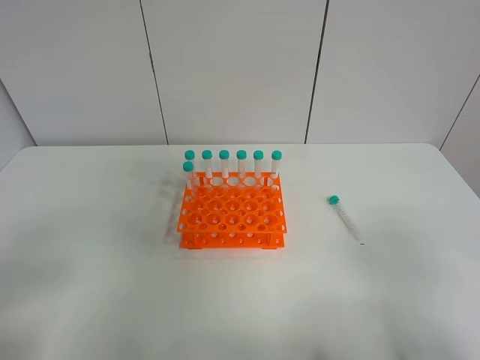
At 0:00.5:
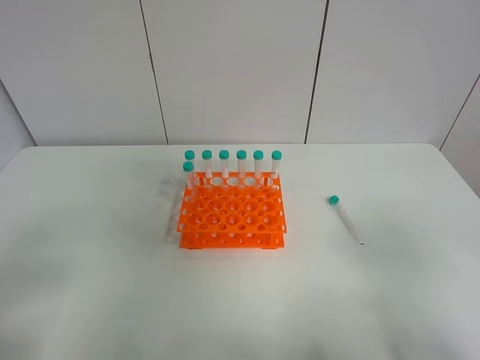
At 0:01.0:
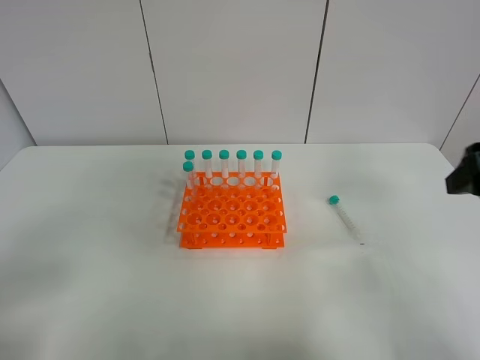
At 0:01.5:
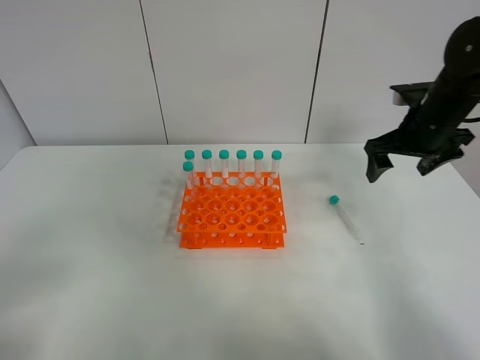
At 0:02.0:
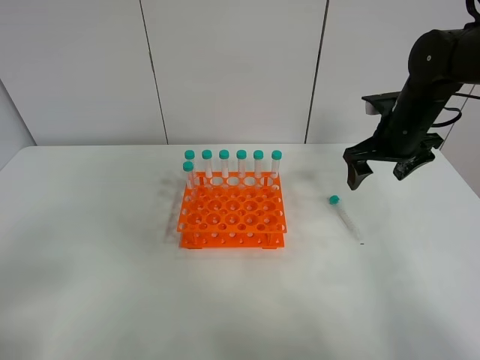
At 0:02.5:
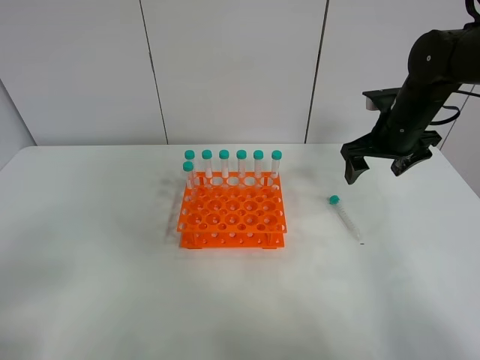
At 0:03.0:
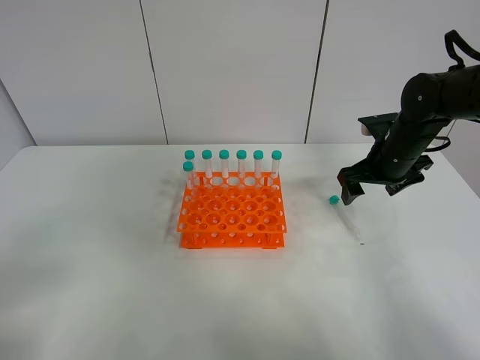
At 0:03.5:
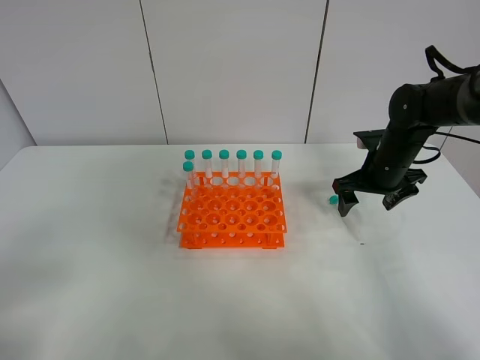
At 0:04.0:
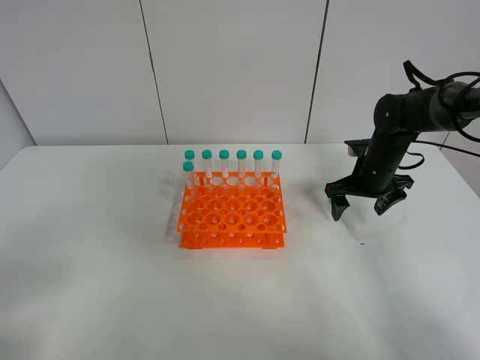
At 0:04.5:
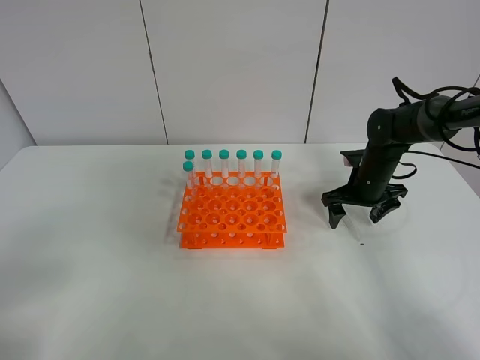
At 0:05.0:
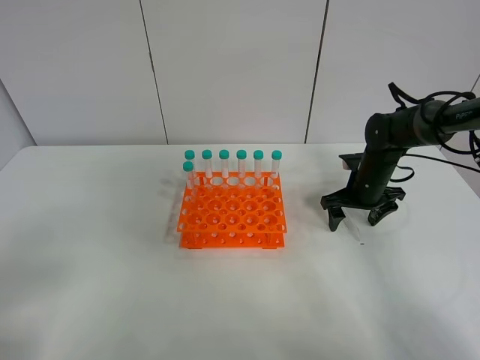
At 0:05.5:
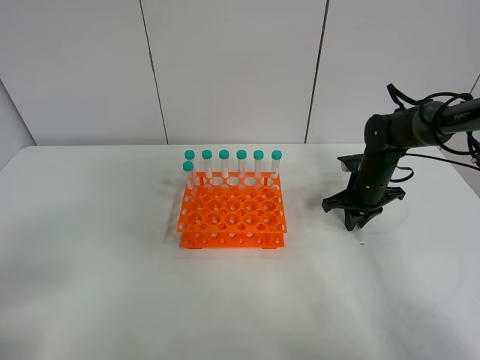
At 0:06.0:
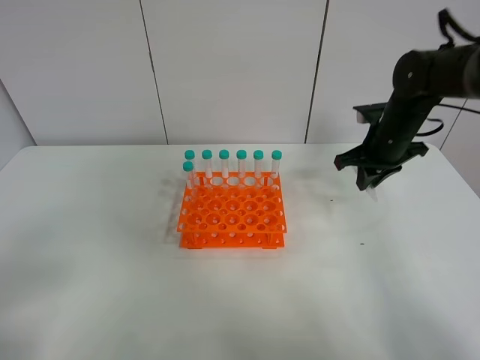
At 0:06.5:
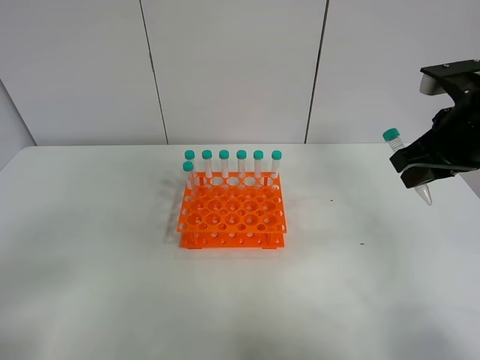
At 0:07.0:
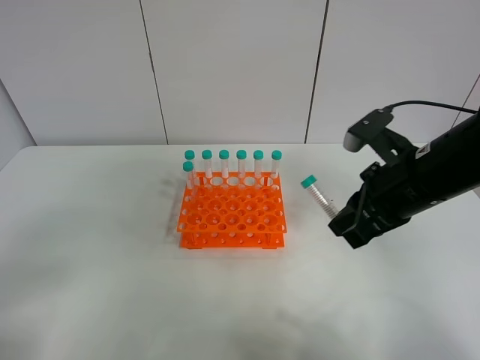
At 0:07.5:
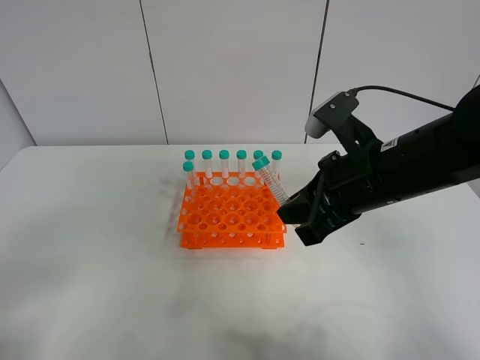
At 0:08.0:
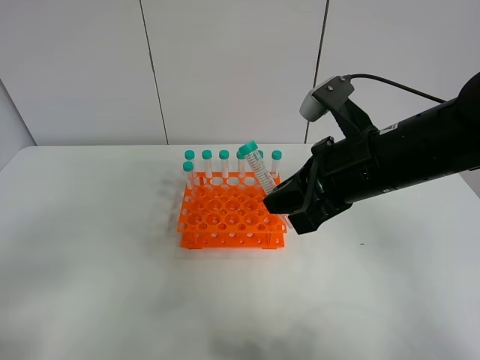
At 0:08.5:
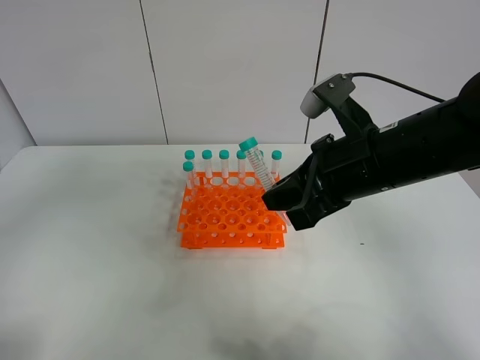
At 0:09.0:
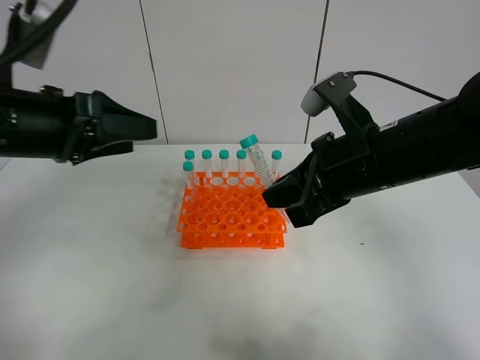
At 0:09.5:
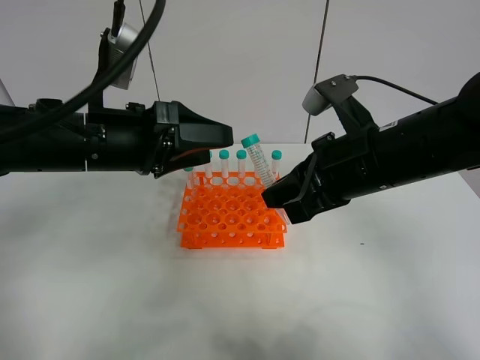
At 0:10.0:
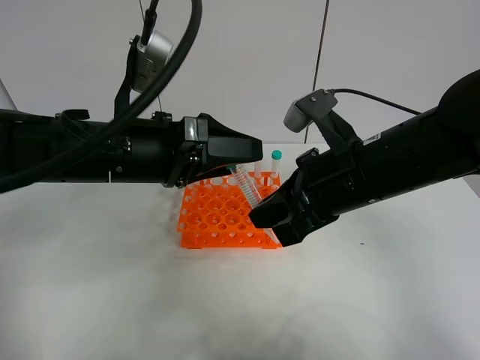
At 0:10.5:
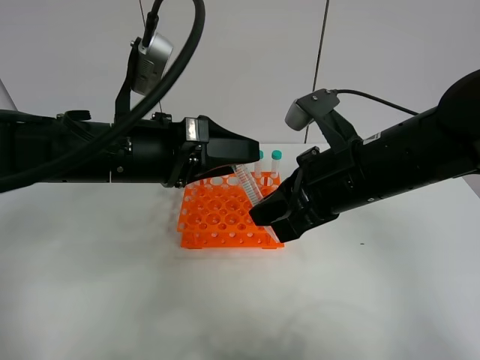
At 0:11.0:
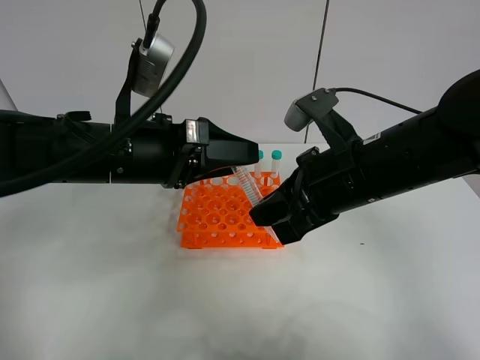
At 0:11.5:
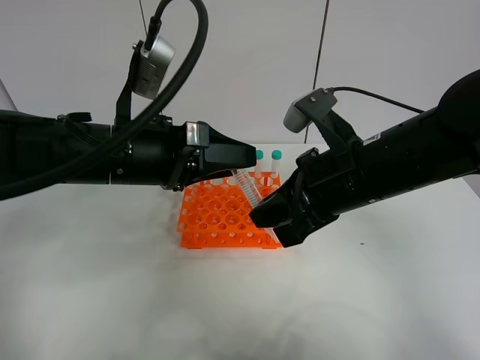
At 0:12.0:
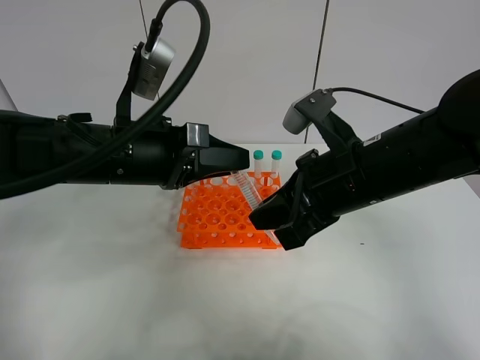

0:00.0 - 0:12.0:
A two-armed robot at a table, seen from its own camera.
Task of the whole recording: Put the test tube on the table back onto the test tube rack.
Step, 0:00.0 - 0:05.5: Pick up the test tube with the right gripper.
0:00.0 - 0:02.0: The right gripper shifts roughly 40 cm forward.
0:02.0 - 0:04.0: The right gripper moves downward, about 10 cm.
0:04.0 - 0:06.0: The right gripper goes approximately 10 cm upward, and closes.
0:06.0 - 0:08.0: The right gripper goes some 20 cm backward and to the left.
0:08.0 - 0:10.0: The left gripper heads forward and to the right, covering roughly 30 cm.
0:10.0 - 0:12.0: The left gripper closes its fingers.

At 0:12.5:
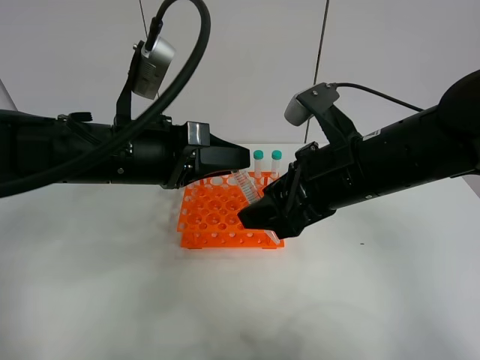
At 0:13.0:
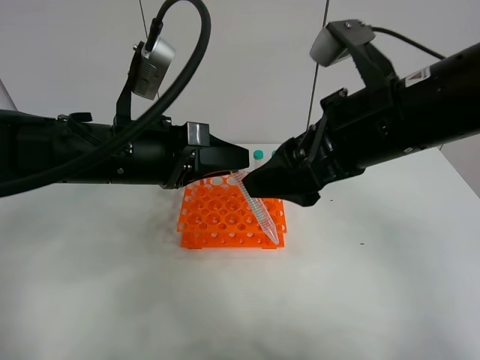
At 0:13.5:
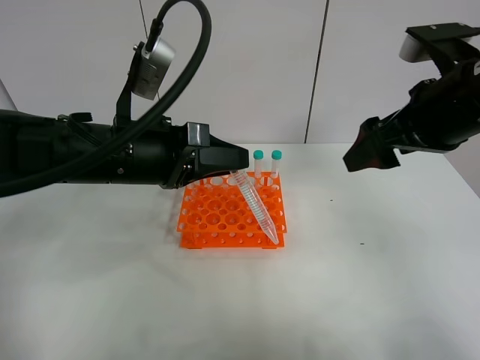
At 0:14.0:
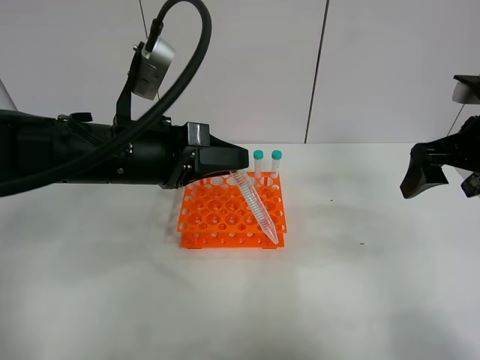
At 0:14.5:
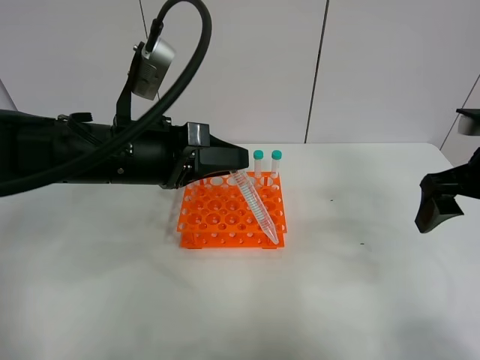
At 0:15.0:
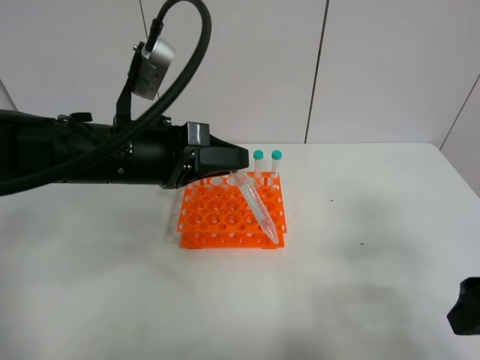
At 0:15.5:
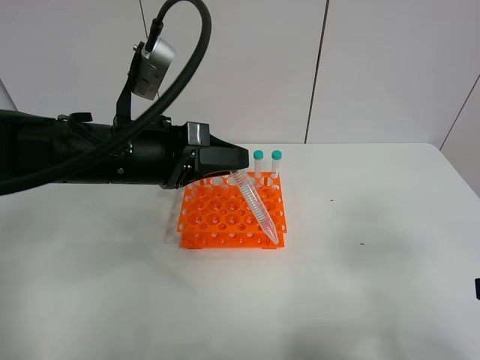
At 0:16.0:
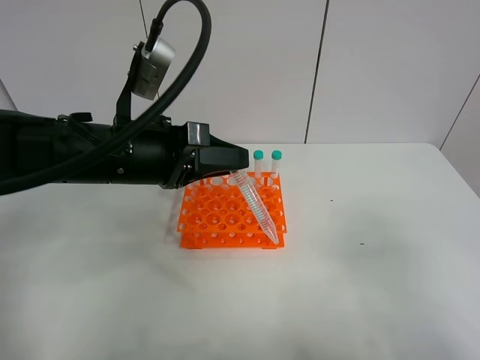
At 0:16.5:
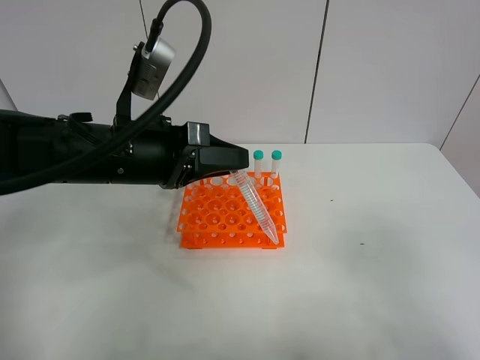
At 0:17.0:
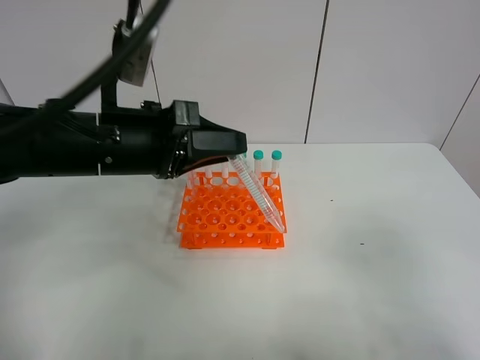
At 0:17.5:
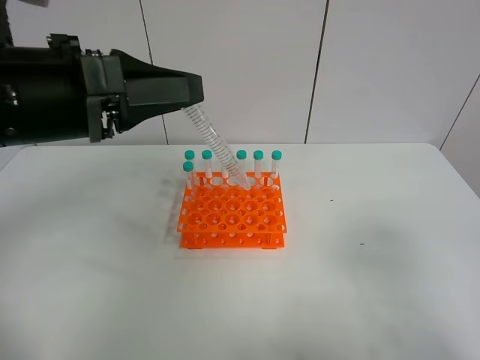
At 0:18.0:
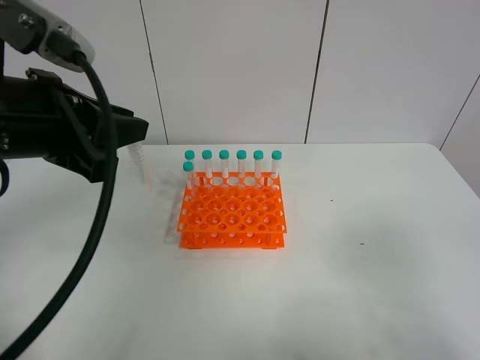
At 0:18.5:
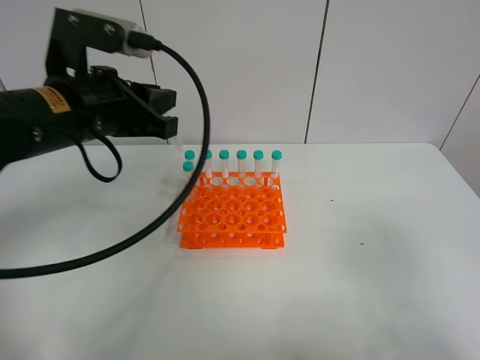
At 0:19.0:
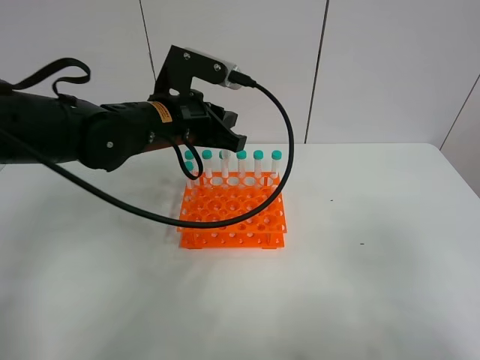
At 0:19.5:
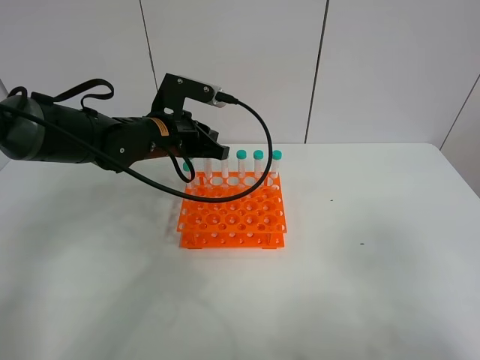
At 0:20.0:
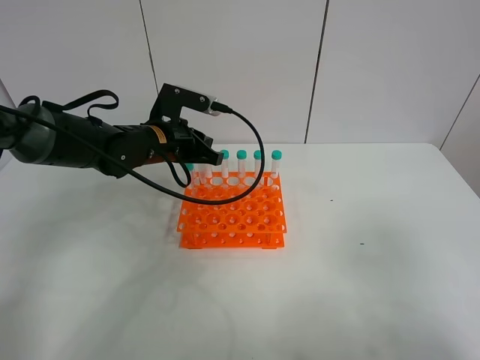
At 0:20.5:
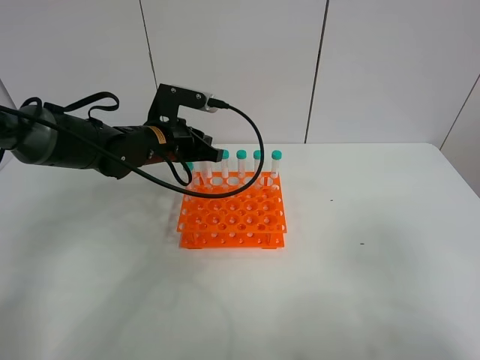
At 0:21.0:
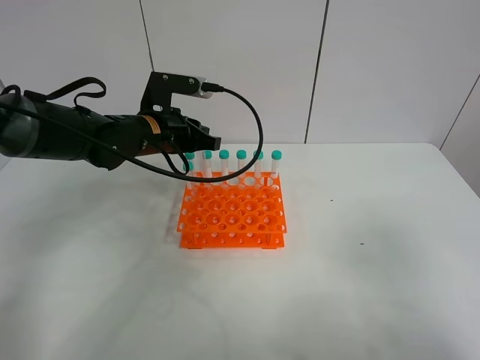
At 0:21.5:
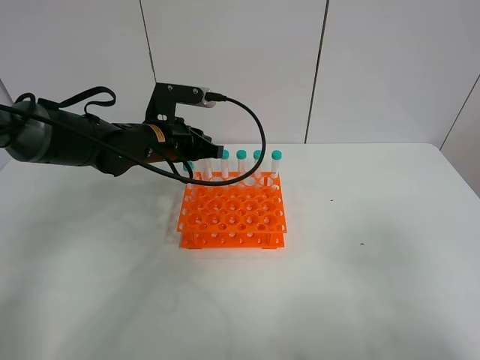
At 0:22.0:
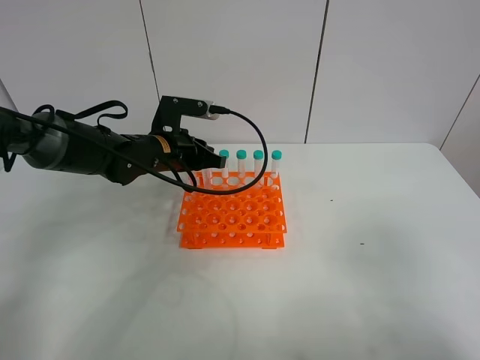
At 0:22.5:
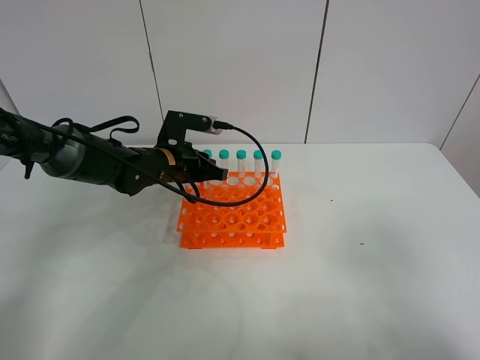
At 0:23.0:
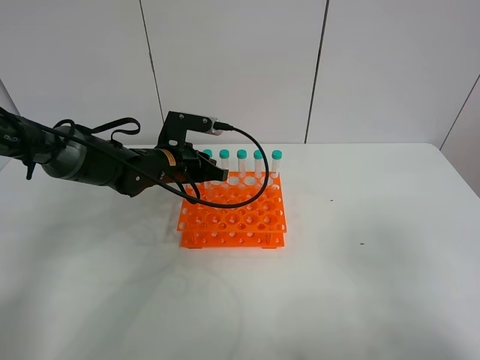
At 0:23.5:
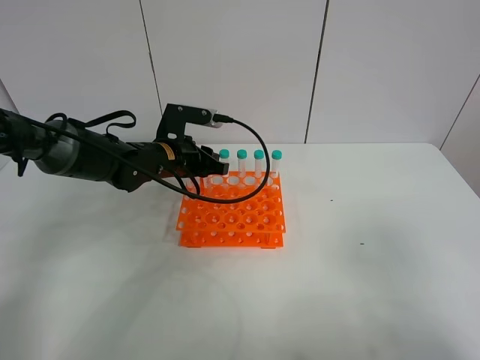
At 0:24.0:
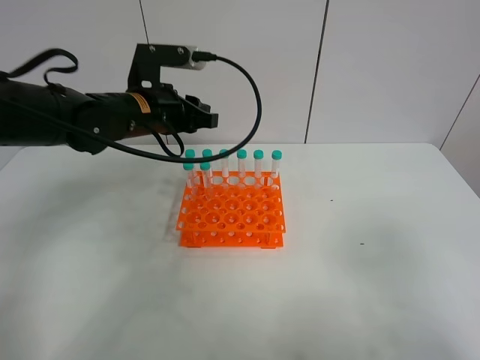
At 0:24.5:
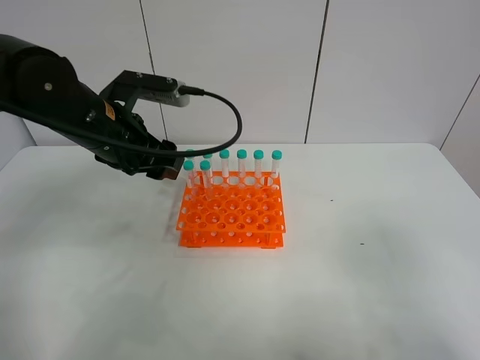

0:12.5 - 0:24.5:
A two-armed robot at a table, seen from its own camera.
Task of the whole recording: Put the test tube on the table back onto the test tube rack.
Step, 0:13.0 - 0:23.0: Place the test tube on the test tube rack with the left gripper.
0:12.5 - 0:14.5: The right gripper travels to the right by about 15 cm.
0:14.5 - 0:16.5: The right gripper moves backward, about 25 cm.
0:18.5 - 0:20.5: The left gripper goes roughly 15 cm forward and downward.
0:20.5 - 0:22.5: The grippers stay close to where they were, moving slightly.
0:22.5 - 0:24.5: The left gripper moves upward and backward, some 15 cm, and opens its fingers.

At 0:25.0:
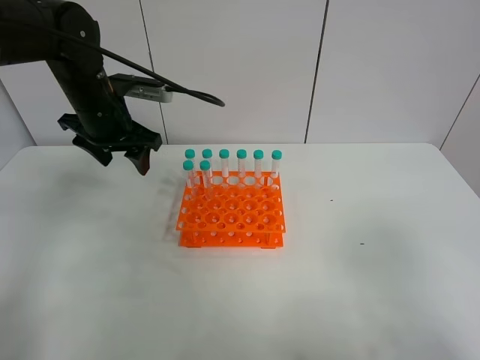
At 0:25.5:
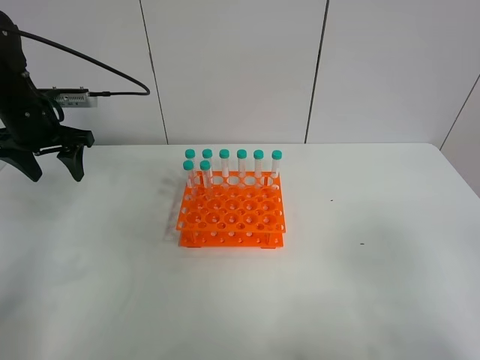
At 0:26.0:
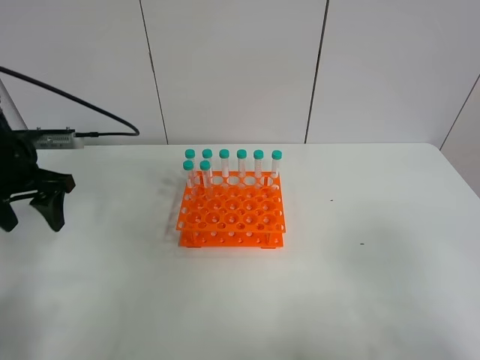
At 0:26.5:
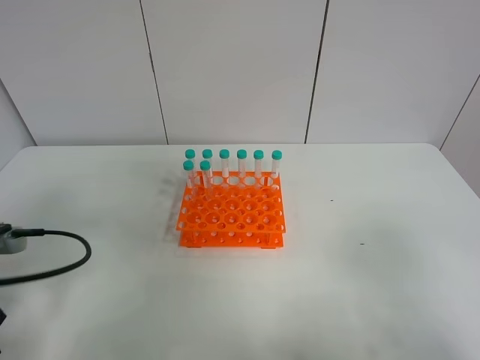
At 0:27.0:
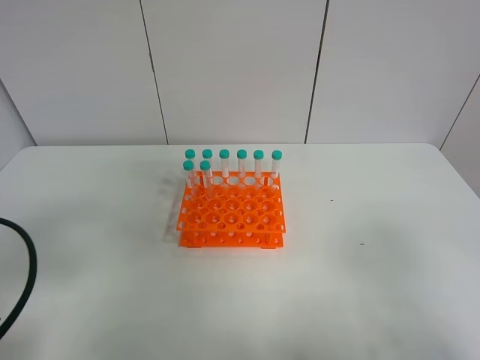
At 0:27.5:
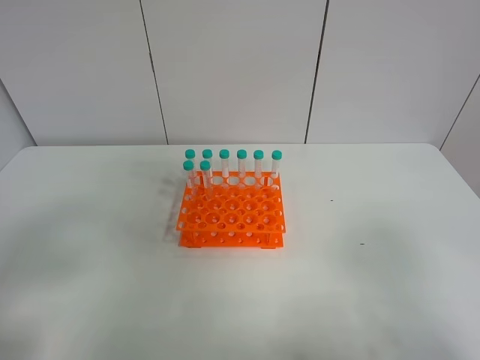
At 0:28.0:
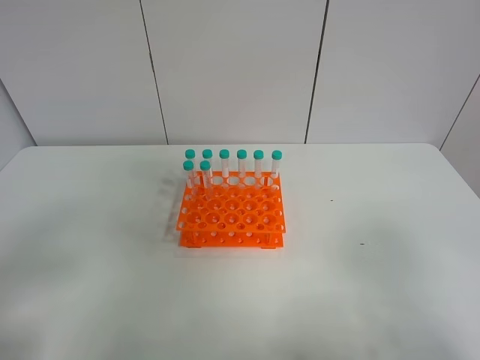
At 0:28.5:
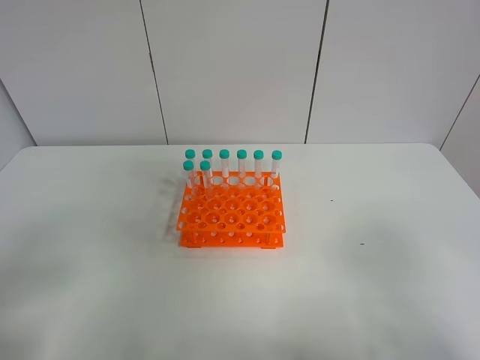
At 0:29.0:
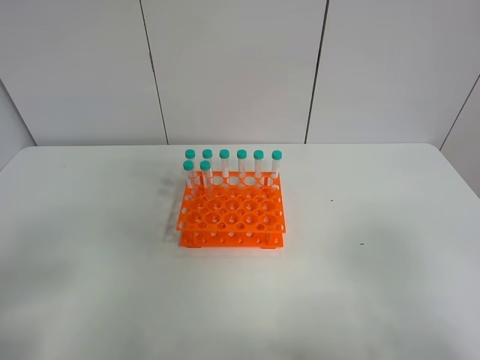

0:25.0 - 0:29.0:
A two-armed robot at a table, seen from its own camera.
Task of the whole recording: Put the test tube on the table back onto the test tube rack.
0:25.0 - 0:27.0: The left gripper shifts approximately 30 cm backward.
0:27.0 - 0:29.0: The left gripper moves backward, some 10 cm.
